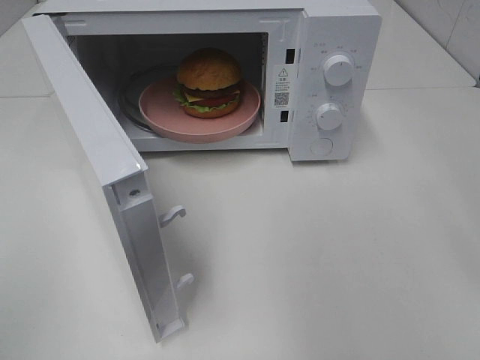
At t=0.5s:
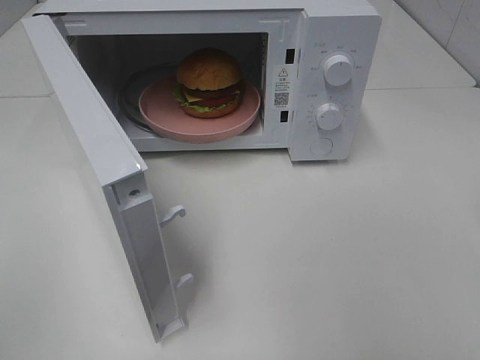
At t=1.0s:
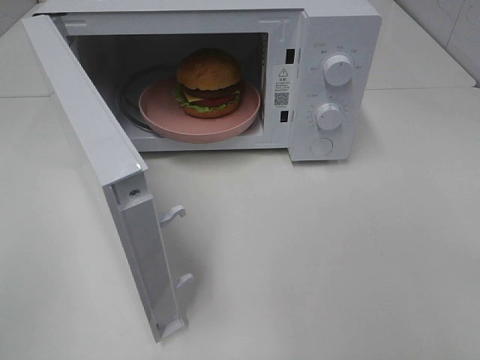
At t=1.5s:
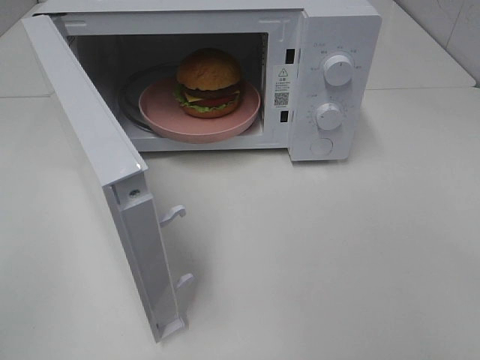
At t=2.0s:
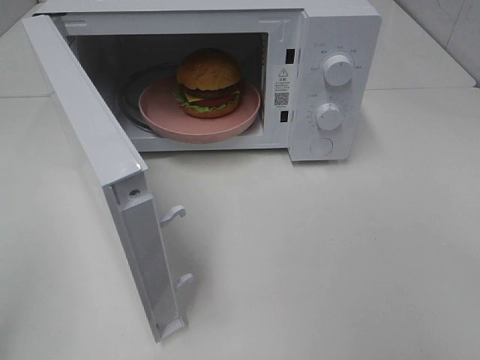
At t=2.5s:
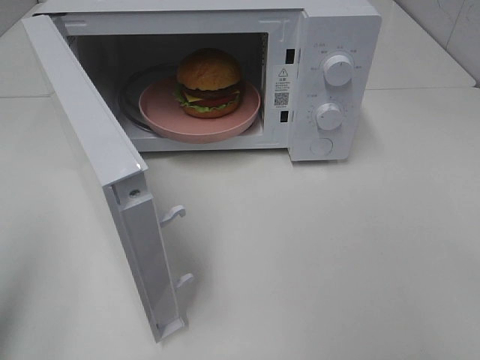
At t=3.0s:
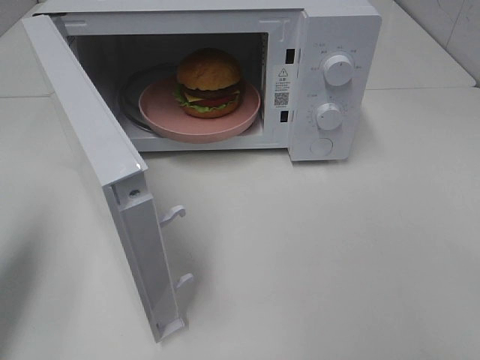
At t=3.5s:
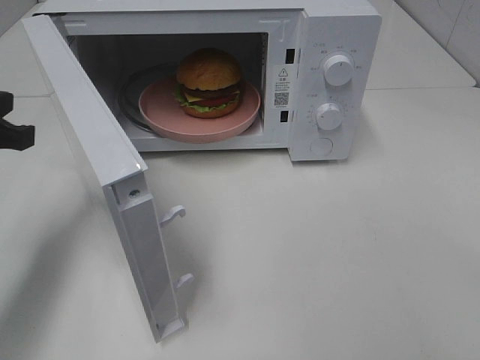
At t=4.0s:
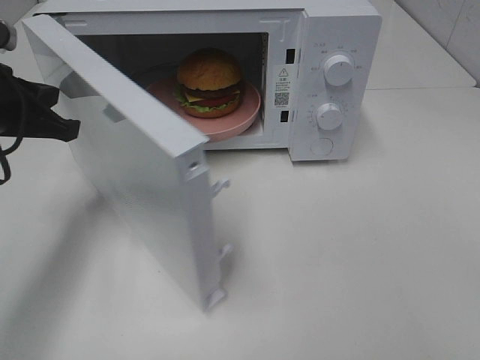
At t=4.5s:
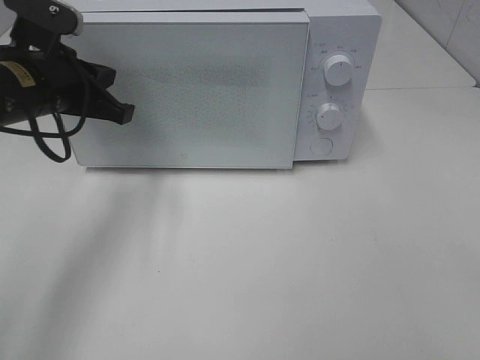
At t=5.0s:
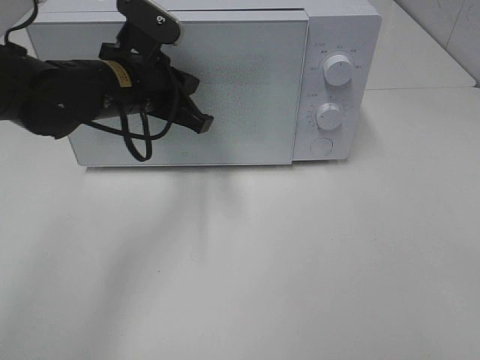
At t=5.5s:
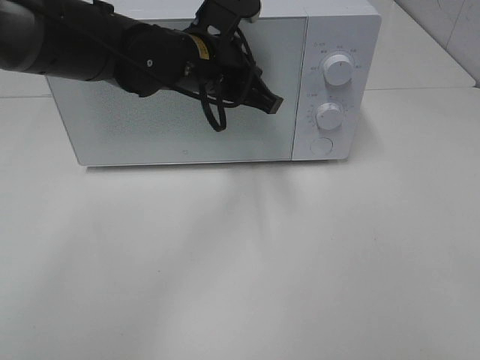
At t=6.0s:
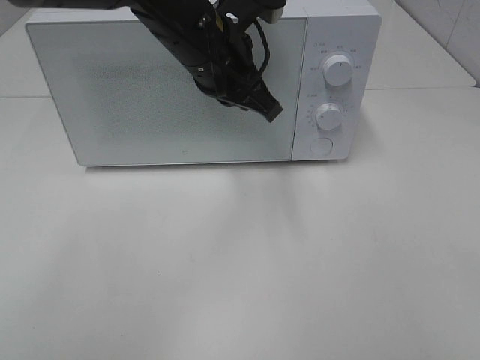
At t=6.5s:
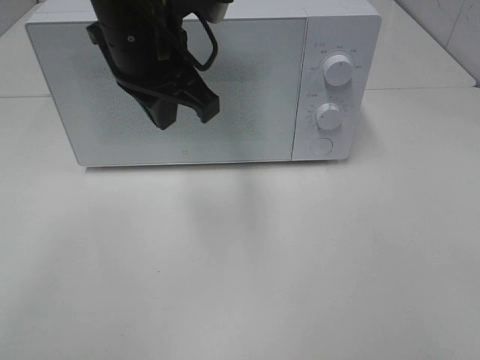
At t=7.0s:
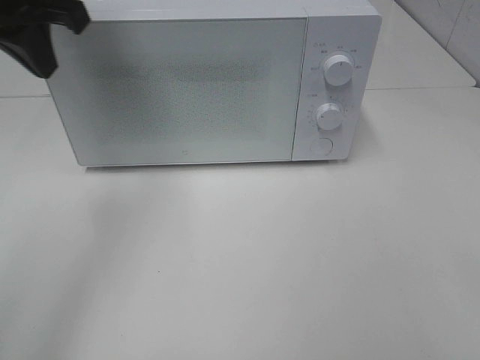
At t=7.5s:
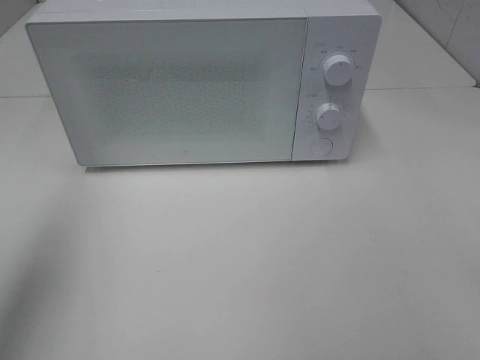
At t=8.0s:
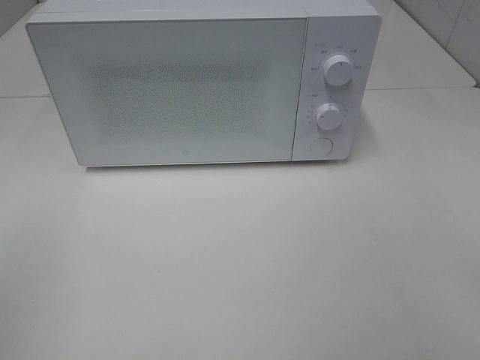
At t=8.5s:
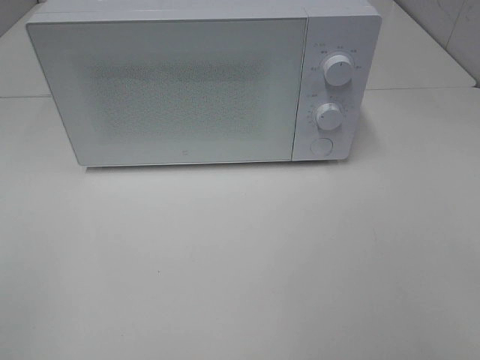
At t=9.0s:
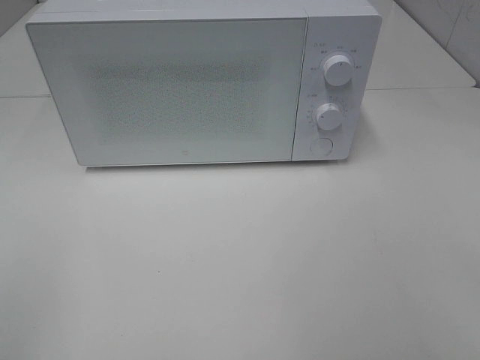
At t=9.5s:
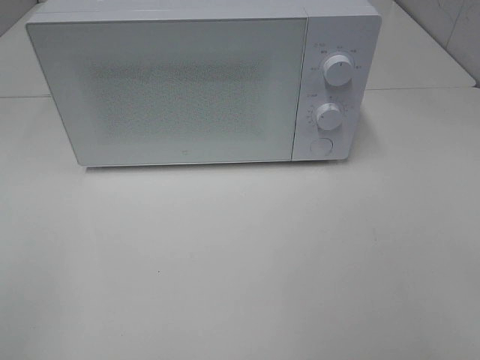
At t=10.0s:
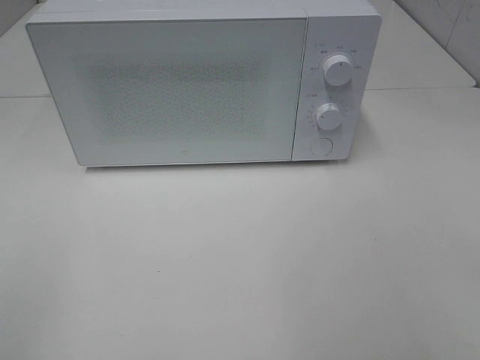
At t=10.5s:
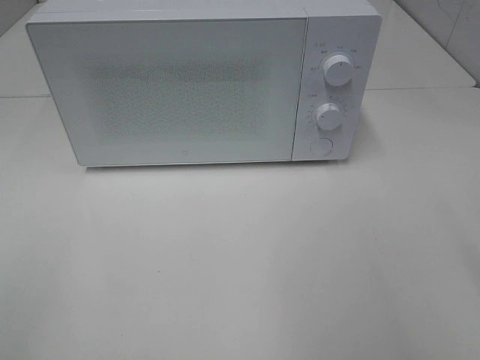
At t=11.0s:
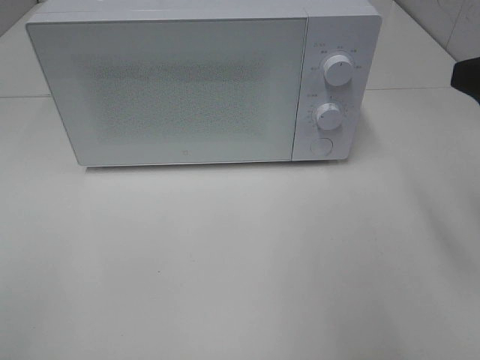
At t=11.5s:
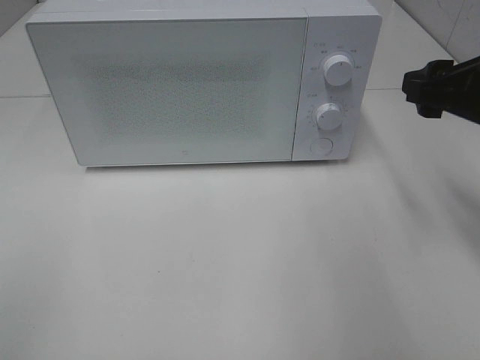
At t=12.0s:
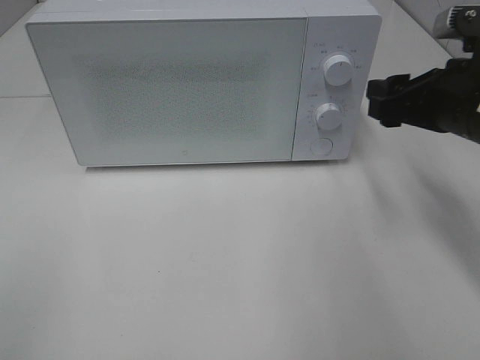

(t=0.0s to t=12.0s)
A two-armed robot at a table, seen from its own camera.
Task of the whole recording: Heat the burger.
Step, t=0.0s - t=5.5s: Left hand: close the microwave door.
t=2.0s - t=4.0s: The left gripper heads forward, covering about 30 cm.
t=4.0s - t=6.0s: The left gripper is displaced to the right by approximately 20 cm, and opens its fingers.
t=6.0s - t=8.0s: The left gripper is displaced backward and to the left by approximately 50 cm.
t=10.0s - t=12.0s: The right gripper heads forward, covering approximately 25 cm.

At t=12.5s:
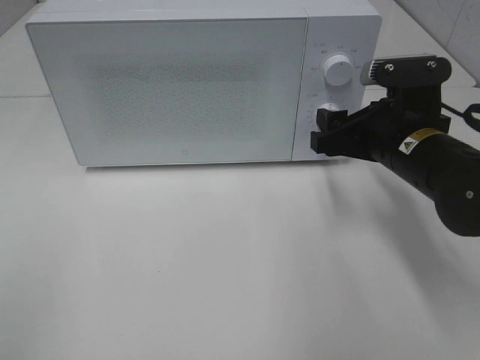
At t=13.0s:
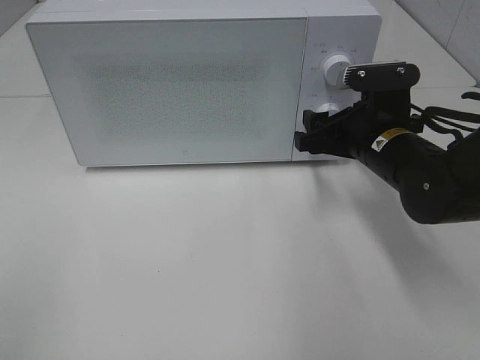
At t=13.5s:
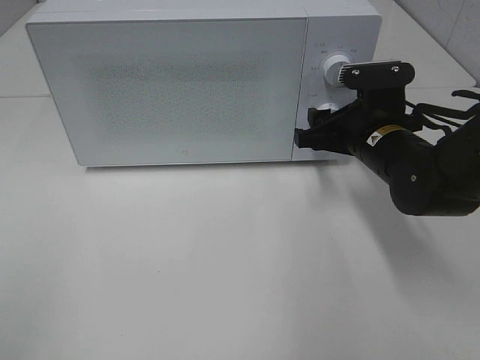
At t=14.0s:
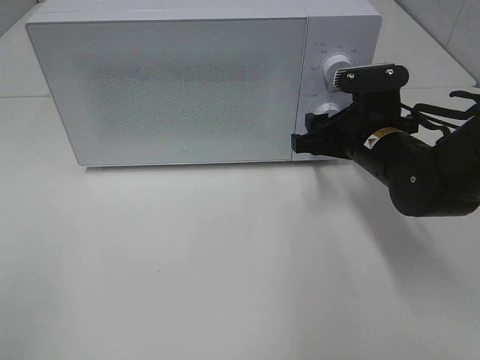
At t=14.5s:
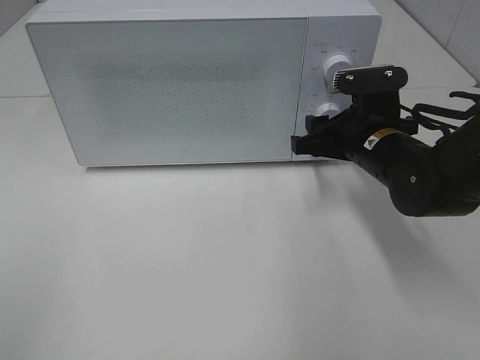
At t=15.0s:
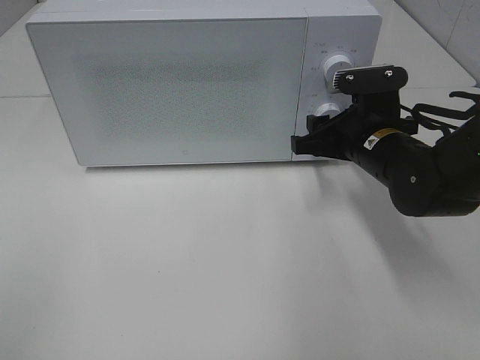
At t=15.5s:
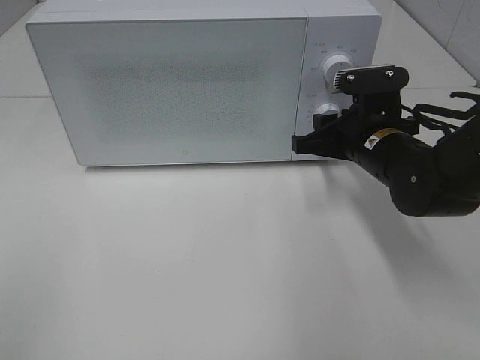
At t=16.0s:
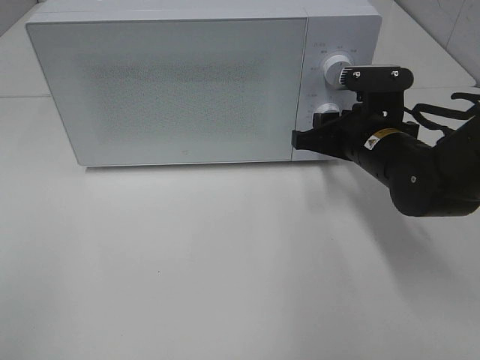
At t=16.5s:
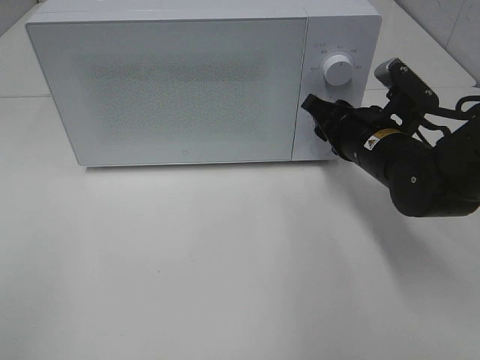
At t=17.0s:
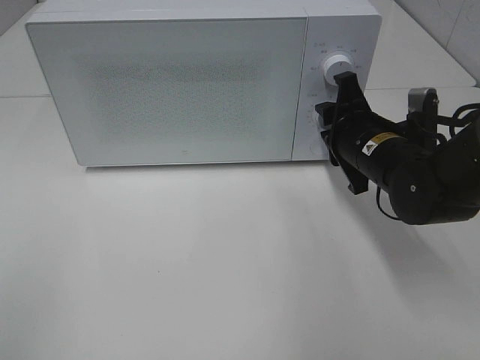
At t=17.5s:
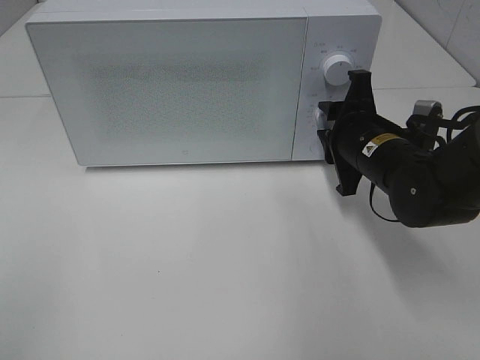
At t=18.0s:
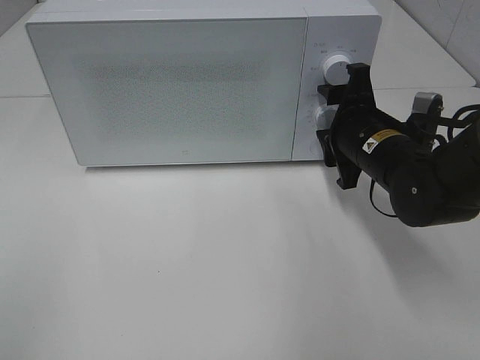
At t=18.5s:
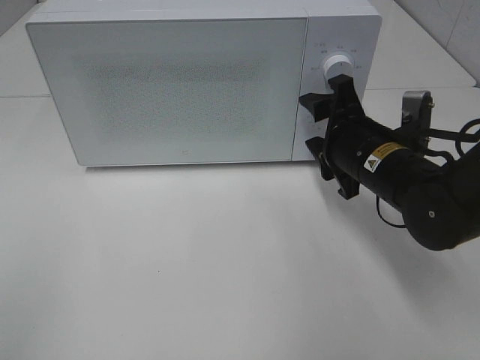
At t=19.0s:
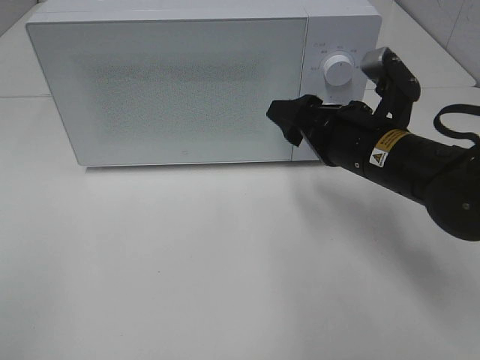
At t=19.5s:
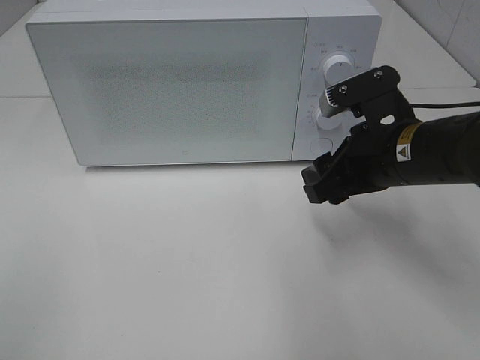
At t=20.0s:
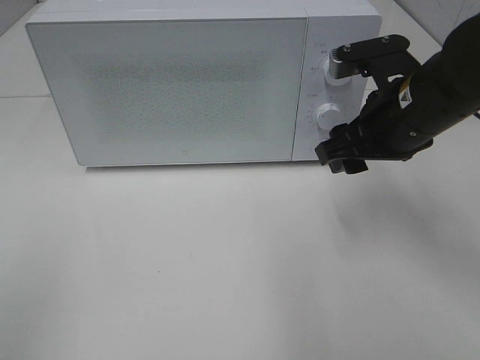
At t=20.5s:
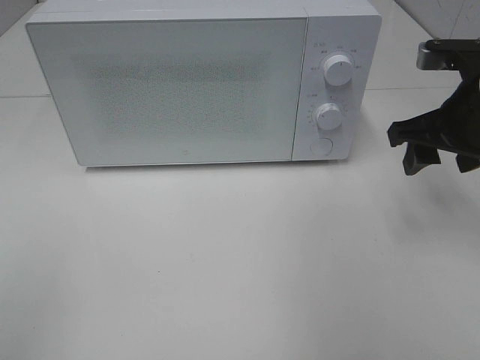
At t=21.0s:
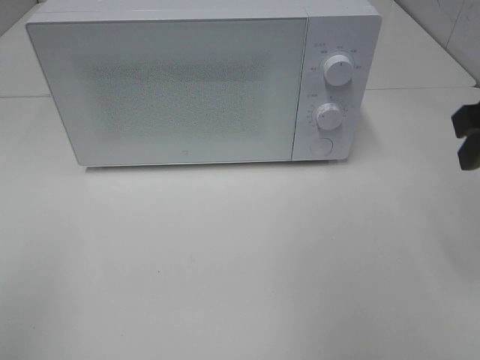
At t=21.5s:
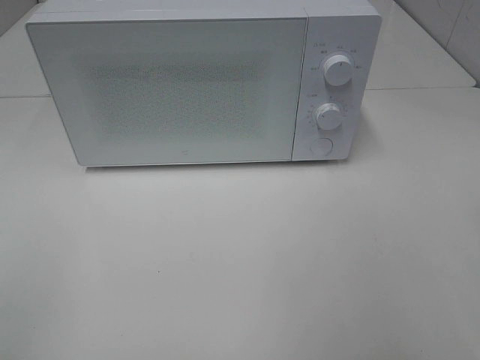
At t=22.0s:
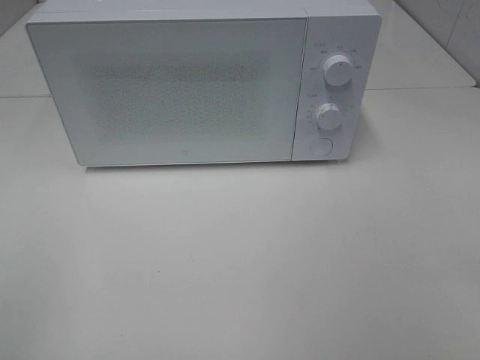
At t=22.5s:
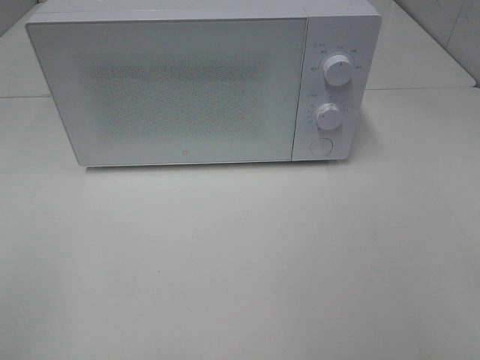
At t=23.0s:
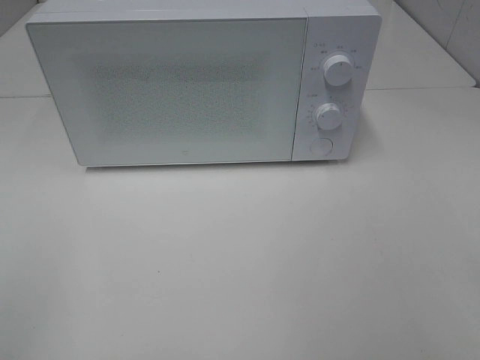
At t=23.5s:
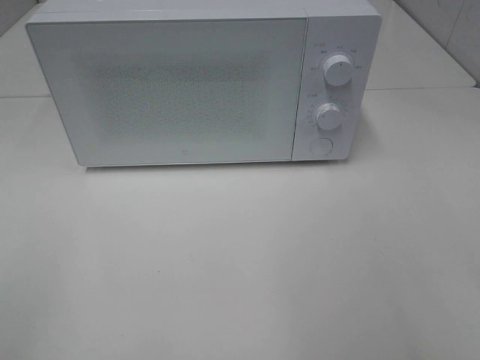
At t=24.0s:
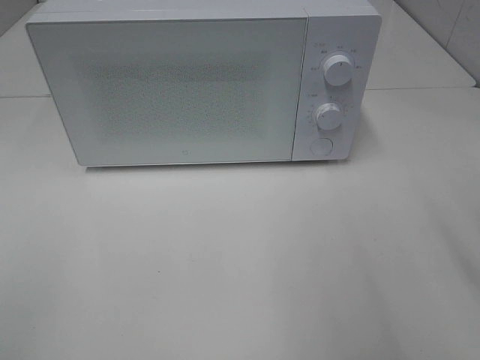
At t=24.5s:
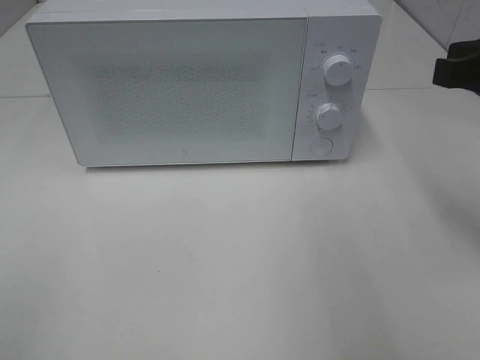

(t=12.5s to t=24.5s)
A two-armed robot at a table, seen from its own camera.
Task of the whole recording: Heat the burger.
Step, t=12.5s - t=17.5s: Right hand: twist timer button.
t=12.5s - t=14.5s: The grippers stay close to where they were, moving slightly.
t=18.5s - t=20.5s: The right gripper heads upward and to the right, covering approximately 15 cm.
t=20.5s - t=22.5s: The right gripper heads backward, covering some 30 cm.
t=22.5s - t=24.5s: The right gripper goes some 20 cm forward, and closes its fingers.

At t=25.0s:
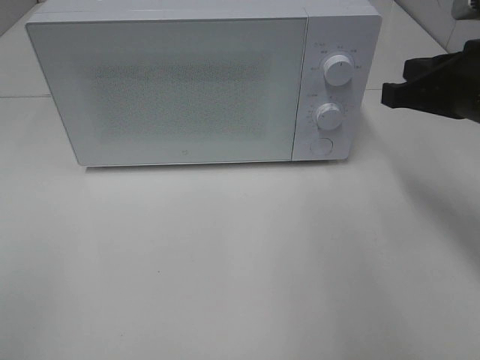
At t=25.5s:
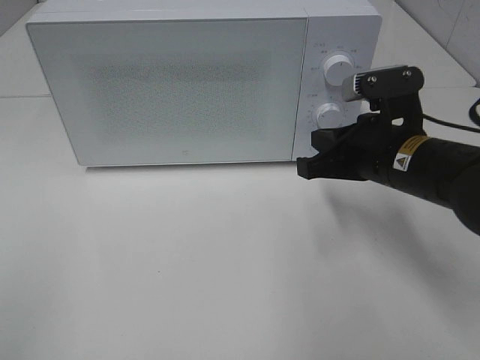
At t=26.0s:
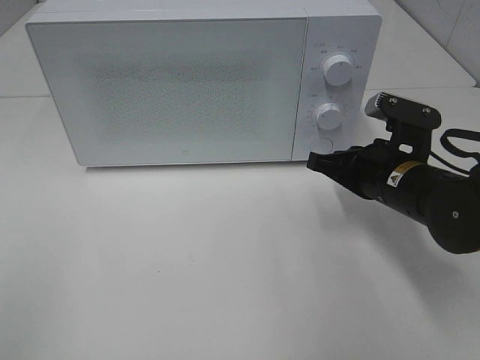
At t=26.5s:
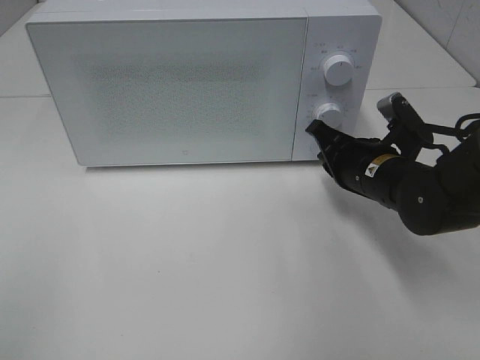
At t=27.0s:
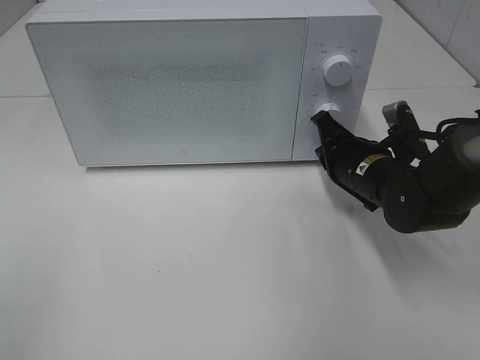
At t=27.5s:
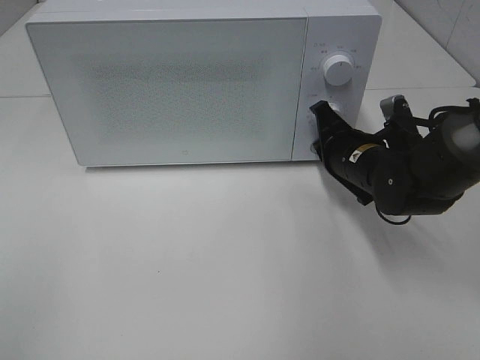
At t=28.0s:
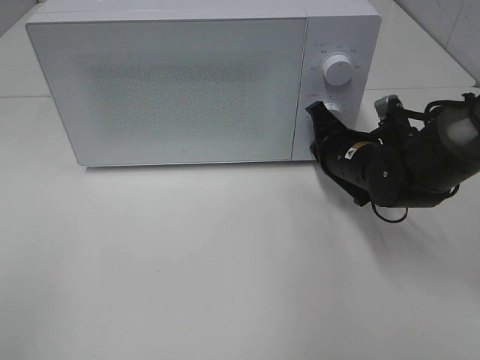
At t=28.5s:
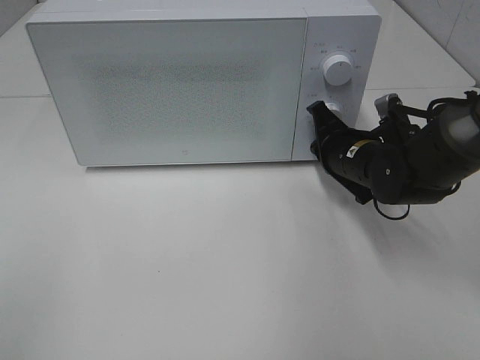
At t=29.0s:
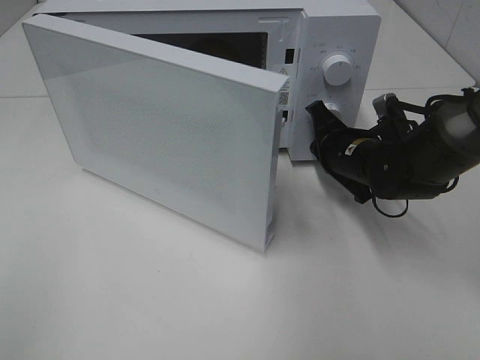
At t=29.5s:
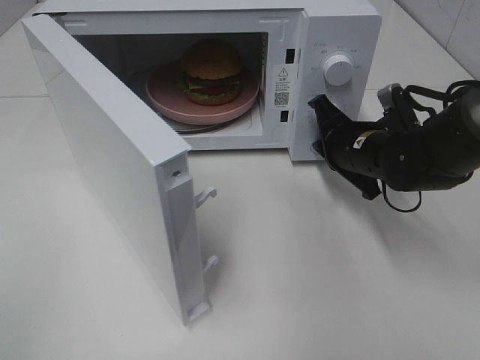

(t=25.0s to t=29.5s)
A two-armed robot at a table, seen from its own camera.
Task of the whole recording: Heat the burger.
t=25.0s - t=27.0s: The right gripper goes about 15 cm downward, to the left and forward.
